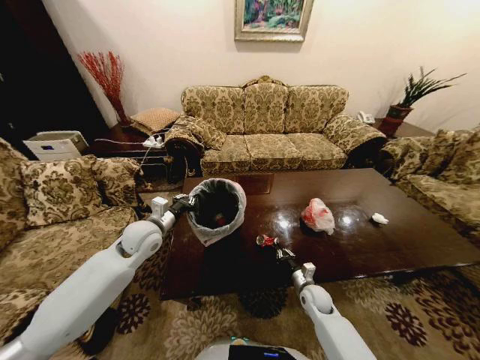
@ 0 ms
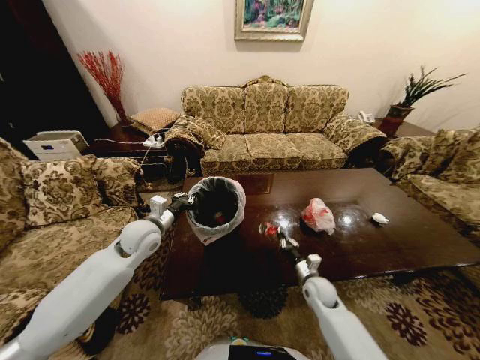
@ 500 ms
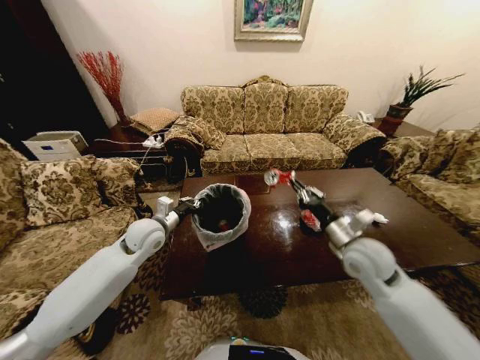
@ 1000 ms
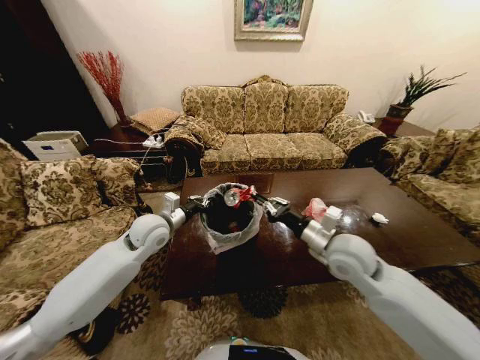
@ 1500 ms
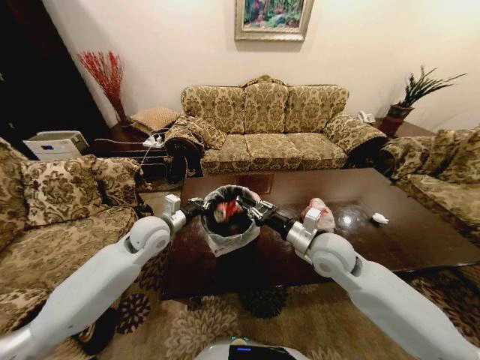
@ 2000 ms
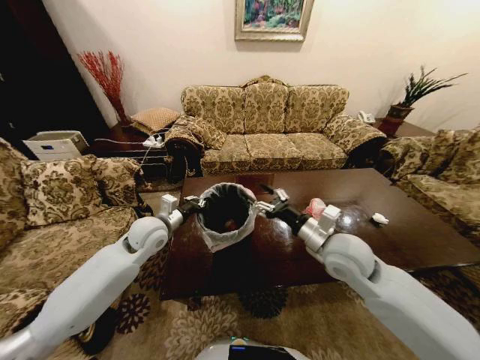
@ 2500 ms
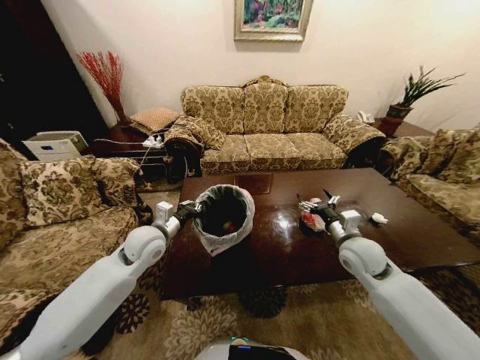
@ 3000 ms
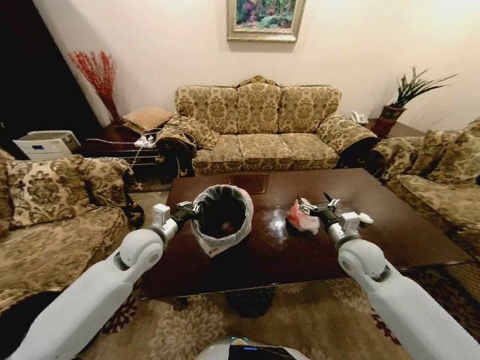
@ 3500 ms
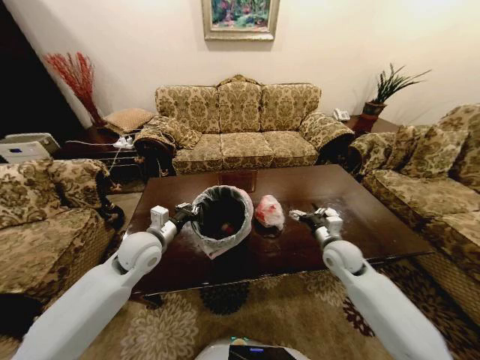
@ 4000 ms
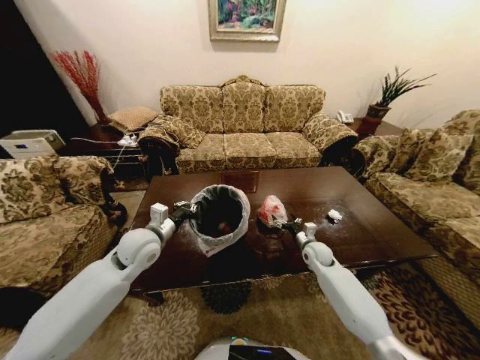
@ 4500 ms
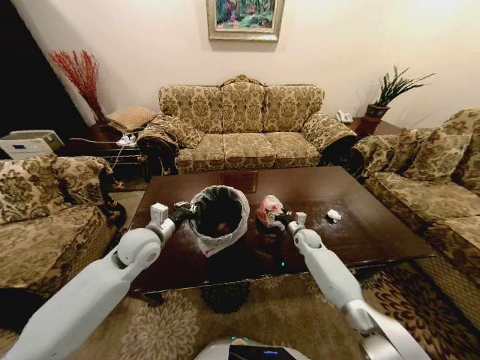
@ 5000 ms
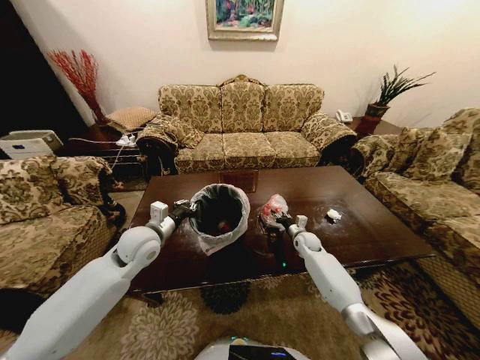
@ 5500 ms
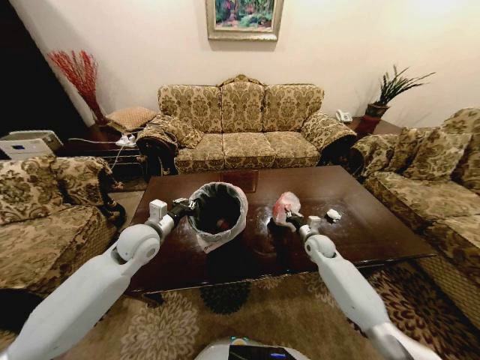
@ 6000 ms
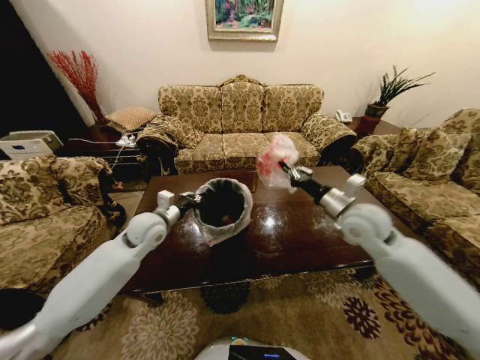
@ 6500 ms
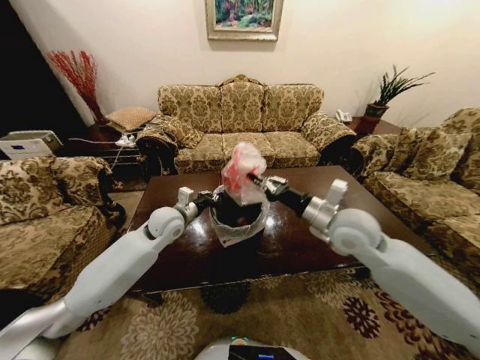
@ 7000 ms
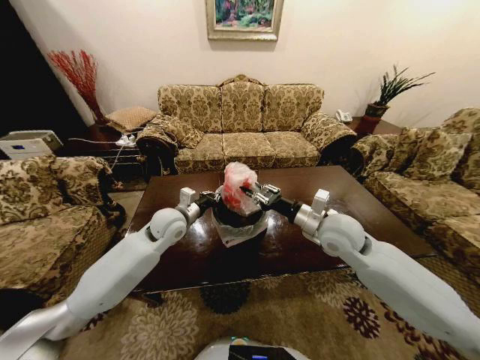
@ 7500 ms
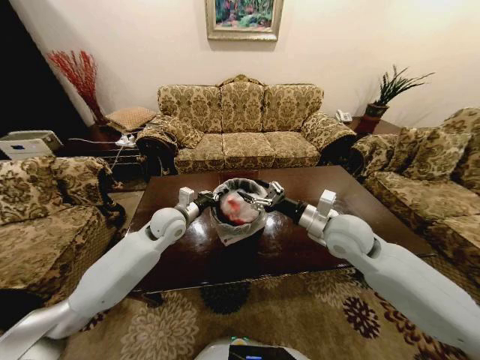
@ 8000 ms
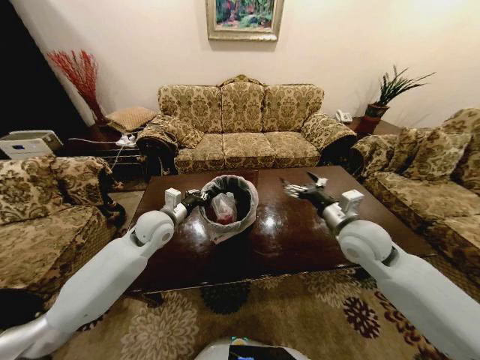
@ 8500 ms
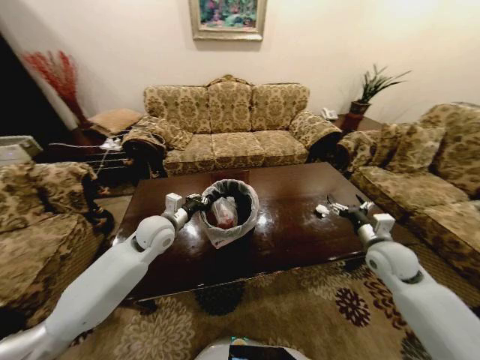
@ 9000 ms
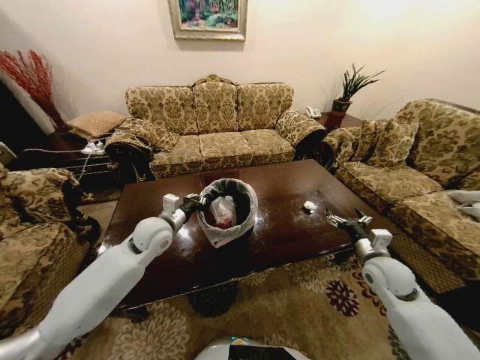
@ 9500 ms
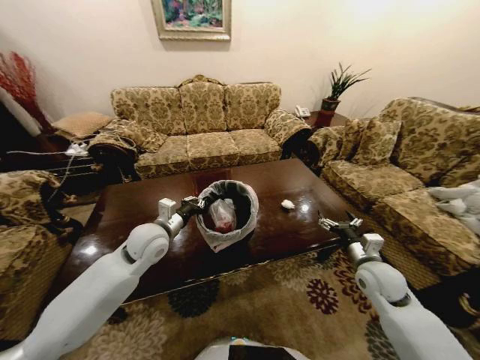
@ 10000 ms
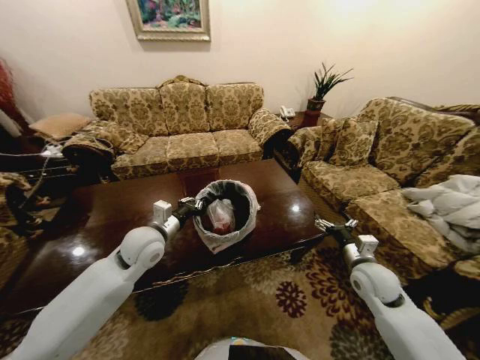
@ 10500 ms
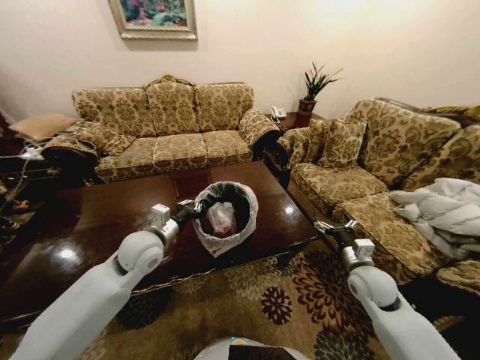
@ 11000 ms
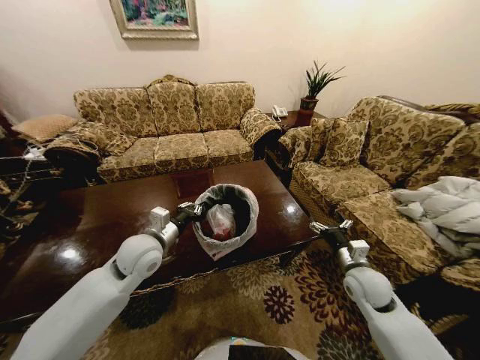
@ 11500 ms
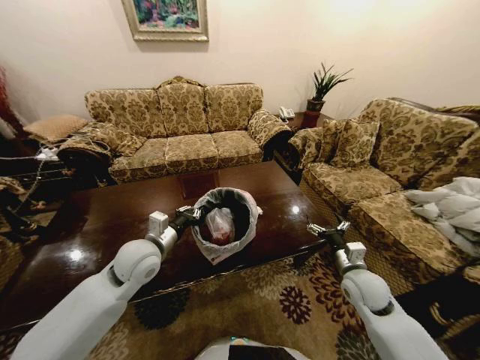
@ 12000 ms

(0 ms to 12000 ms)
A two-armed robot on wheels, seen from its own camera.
Task of the whole recording: Move to the front of the table and place the trash on the table into the trash bin.
0 ms - 2000 ms: The right gripper travels upward by about 30 cm.
2000 ms - 4000 ms: The right gripper travels downward and to the right by roughly 15 cm, and opens.
4000 ms - 6000 ms: The right gripper is displaced downward and forward by approximately 10 cm, and closes its fingers.
6000 ms - 8000 ms: The left gripper moves forward and to the right, some 10 cm, while the right gripper heads upward and backward, covering approximately 25 cm, and opens its fingers.
8000 ms - 10000 ms: The right gripper heads downward and to the right, covering approximately 20 cm. The left gripper is displaced backward by approximately 5 cm.

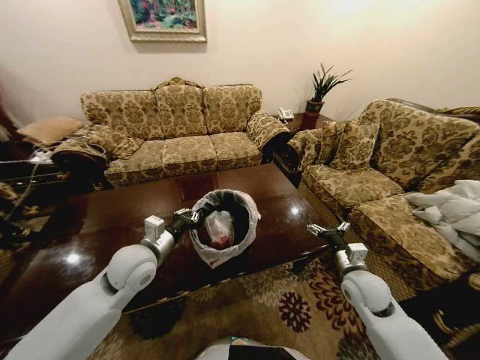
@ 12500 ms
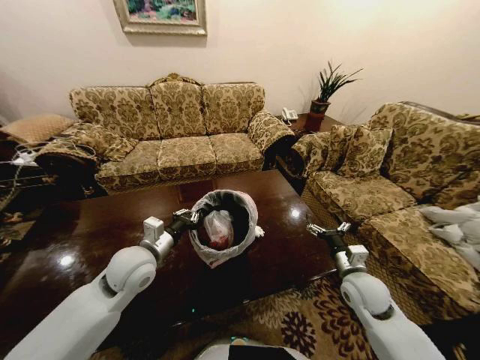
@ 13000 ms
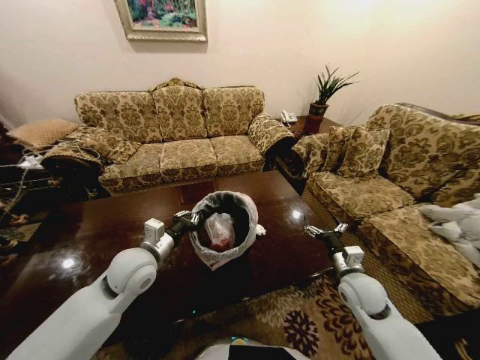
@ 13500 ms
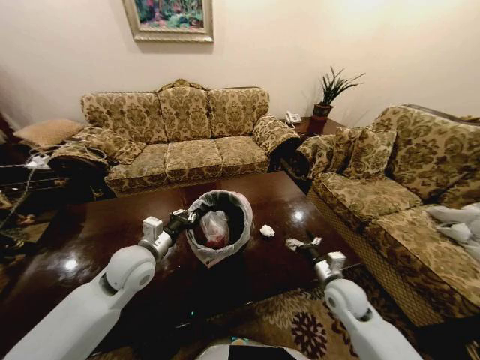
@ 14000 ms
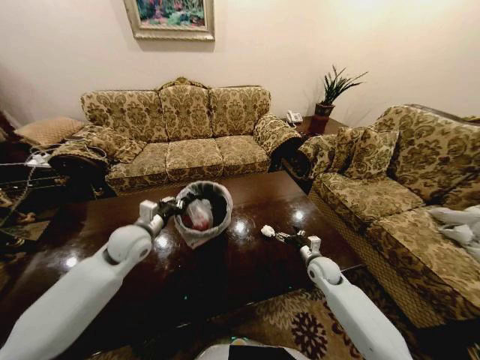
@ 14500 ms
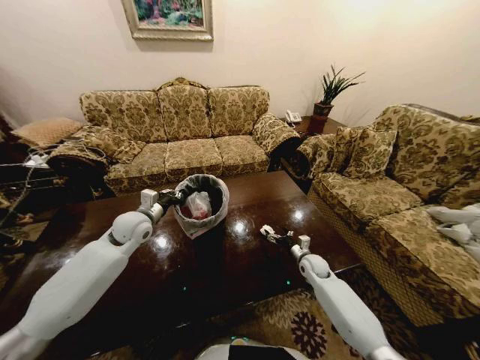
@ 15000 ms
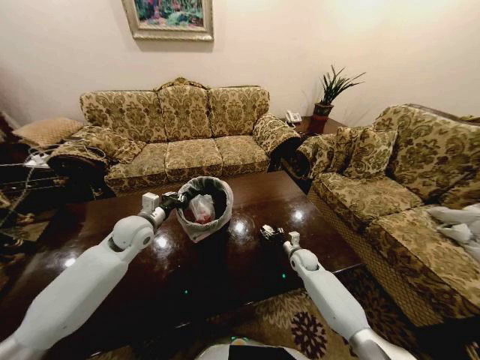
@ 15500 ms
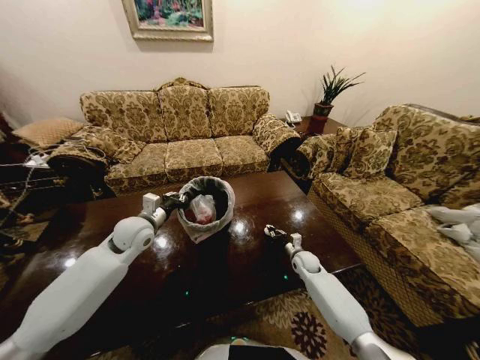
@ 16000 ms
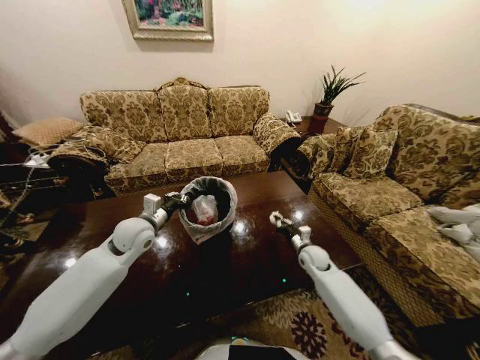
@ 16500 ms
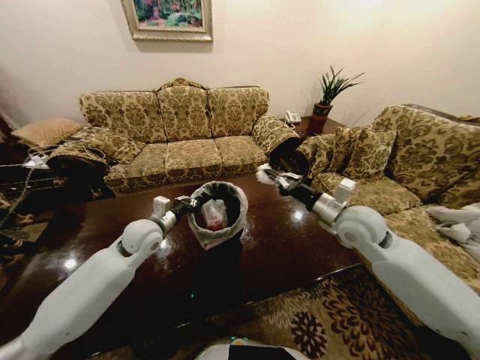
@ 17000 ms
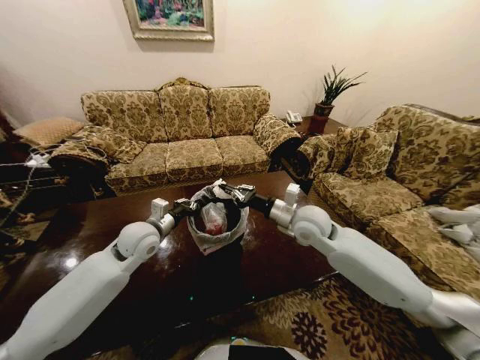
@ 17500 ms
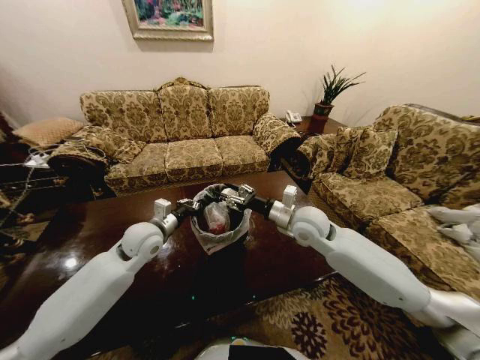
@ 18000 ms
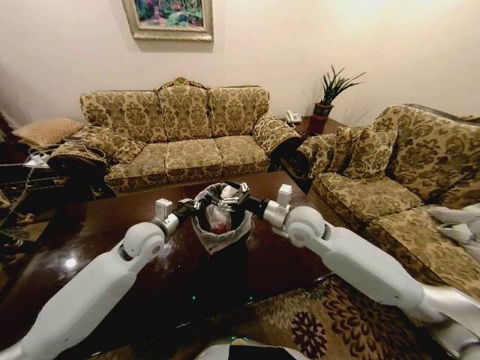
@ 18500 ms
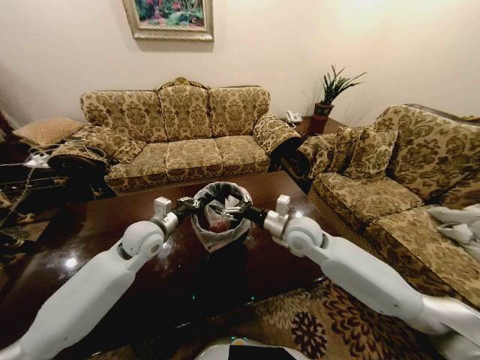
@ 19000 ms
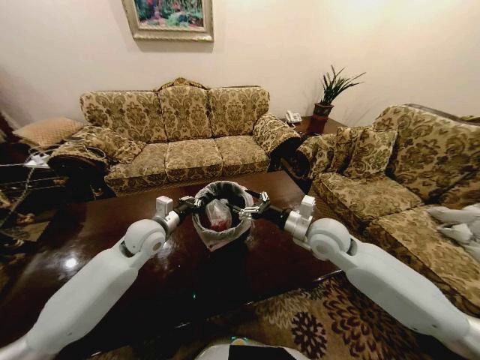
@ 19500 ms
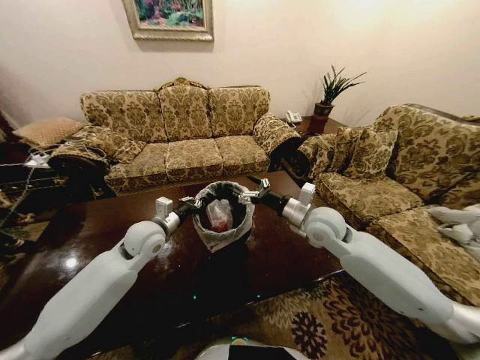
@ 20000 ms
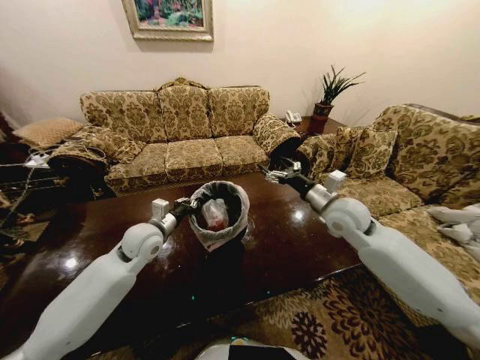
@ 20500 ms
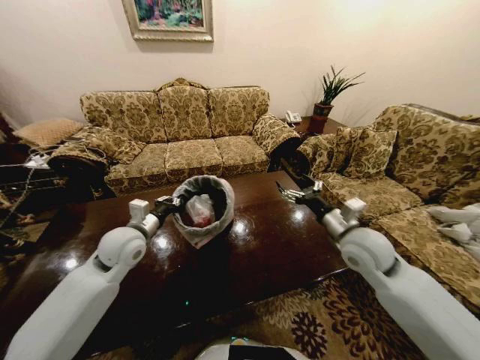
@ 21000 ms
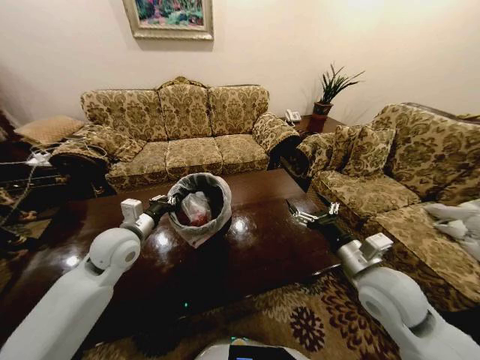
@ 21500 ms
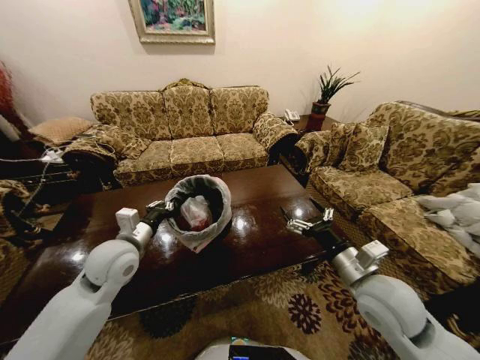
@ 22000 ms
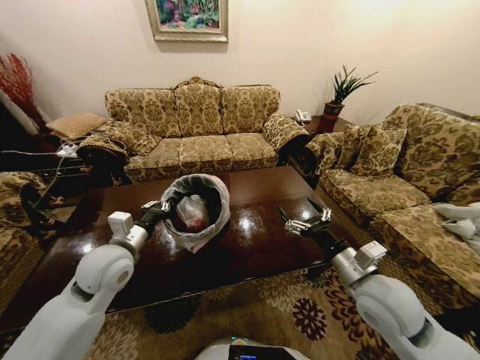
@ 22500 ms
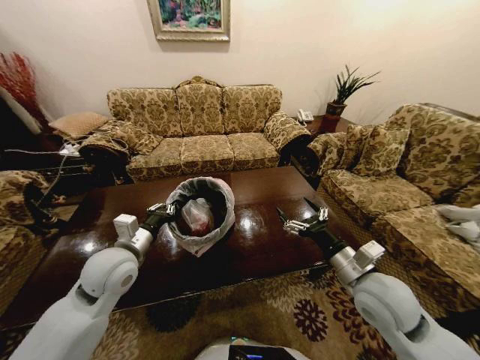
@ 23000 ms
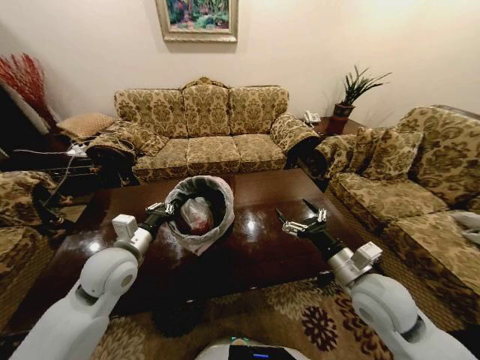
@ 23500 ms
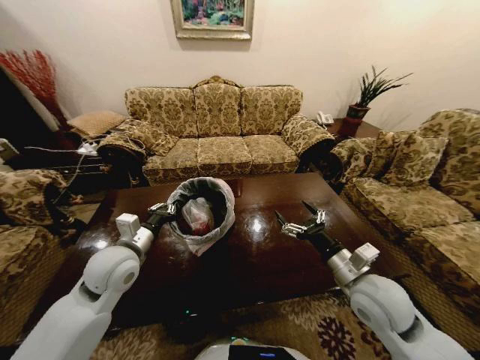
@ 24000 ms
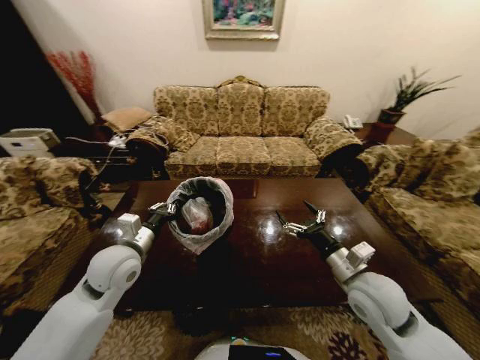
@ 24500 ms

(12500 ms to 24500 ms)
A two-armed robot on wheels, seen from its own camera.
Task of the whole recording: Move to the front of the table and place the trash on the table into the trash bin.
12500 ms - 14500 ms: The right gripper heads downward and forward, covering some 15 cm. Meanwhile the left gripper goes approximately 5 cm forward.
14500 ms - 16500 ms: The right gripper closes its fingers.
16500 ms - 18500 ms: The right gripper moves upward and to the left, approximately 25 cm, and opens its fingers.
18500 ms - 20500 ms: The right gripper heads to the right, covering some 10 cm.
20500 ms - 22500 ms: The left gripper heads backward, covering about 10 cm. The right gripper travels backward by approximately 15 cm.

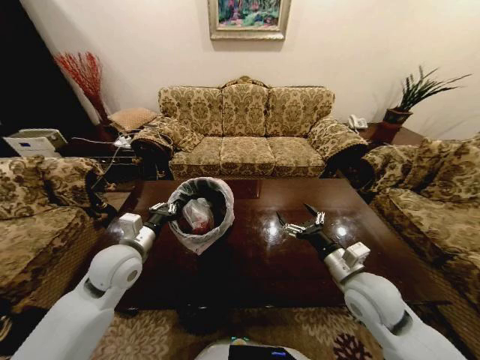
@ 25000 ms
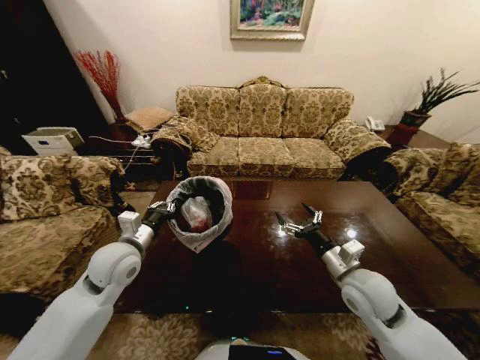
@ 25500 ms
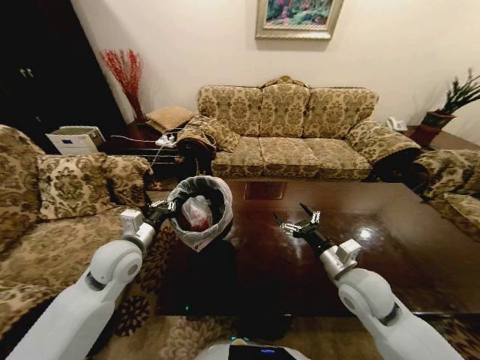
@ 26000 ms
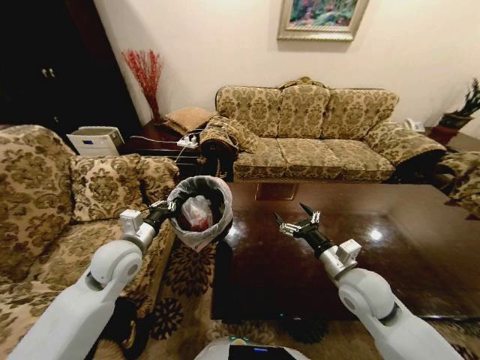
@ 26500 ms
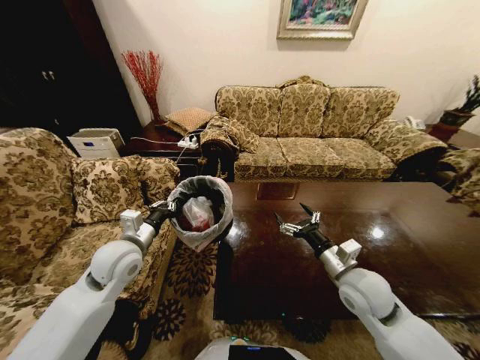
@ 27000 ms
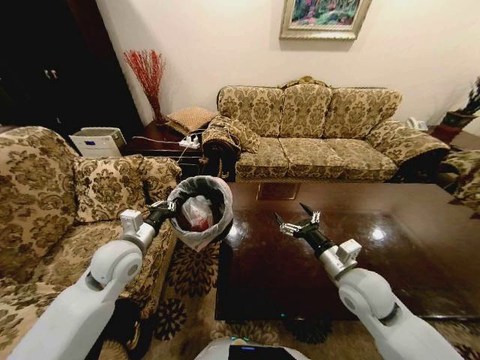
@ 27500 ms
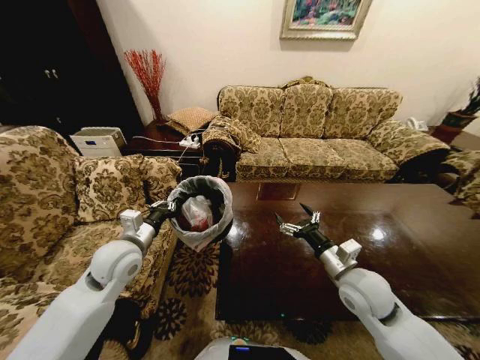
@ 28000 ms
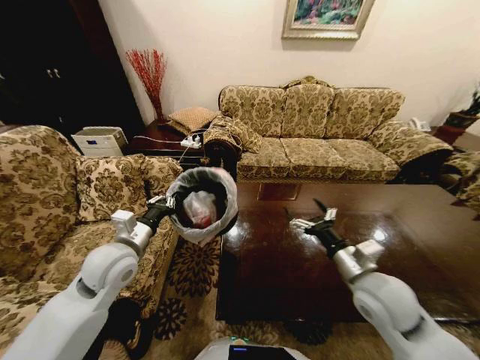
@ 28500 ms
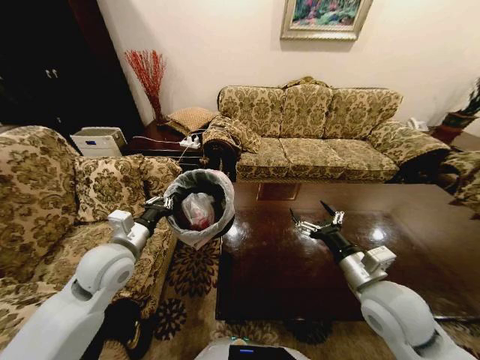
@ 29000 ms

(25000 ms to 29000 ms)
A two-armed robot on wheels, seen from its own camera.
Task of the whole recording: Move to the front of the table and place the trash on the table into the trash bin.
27000 ms - 29000 ms: The right gripper shifts by approximately 5 cm.
